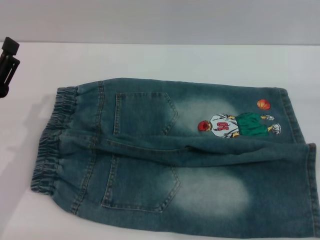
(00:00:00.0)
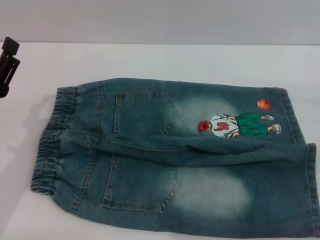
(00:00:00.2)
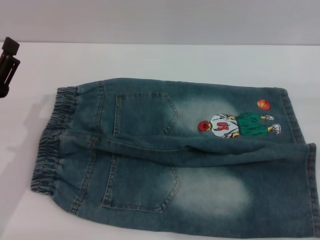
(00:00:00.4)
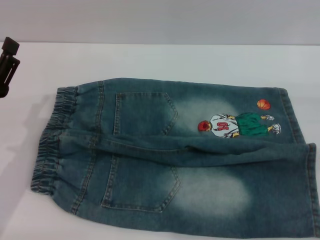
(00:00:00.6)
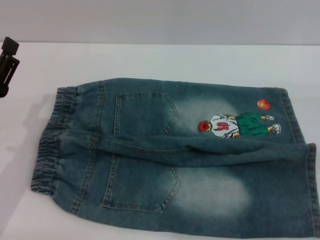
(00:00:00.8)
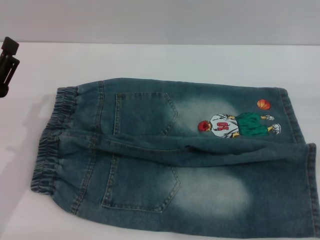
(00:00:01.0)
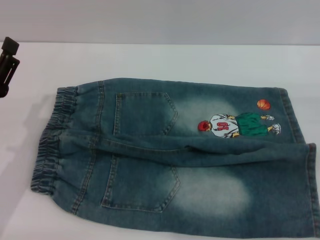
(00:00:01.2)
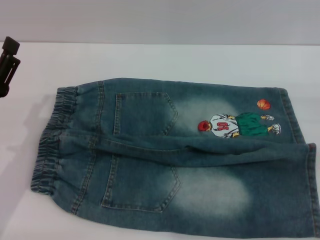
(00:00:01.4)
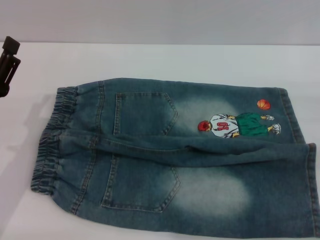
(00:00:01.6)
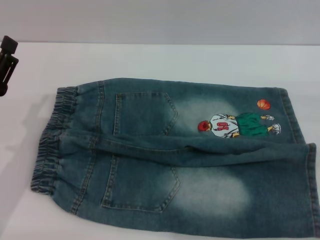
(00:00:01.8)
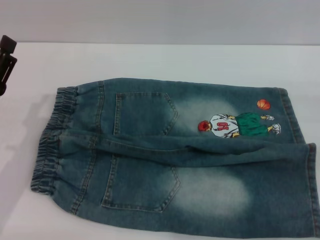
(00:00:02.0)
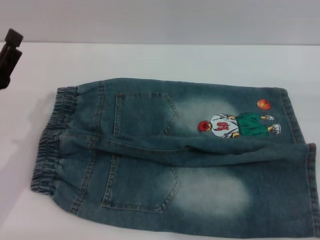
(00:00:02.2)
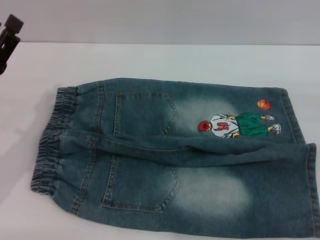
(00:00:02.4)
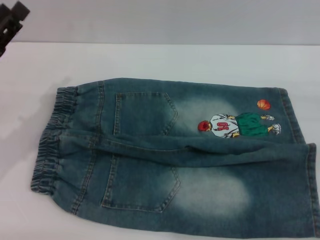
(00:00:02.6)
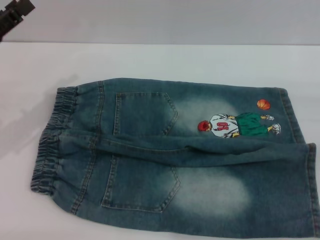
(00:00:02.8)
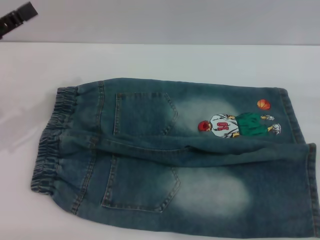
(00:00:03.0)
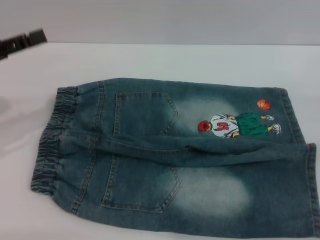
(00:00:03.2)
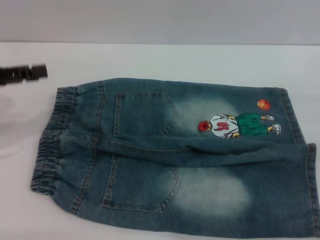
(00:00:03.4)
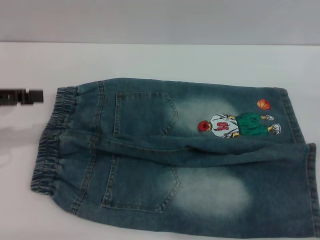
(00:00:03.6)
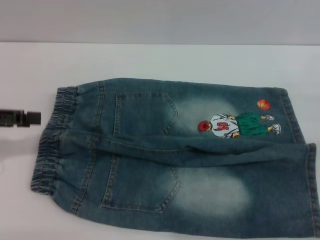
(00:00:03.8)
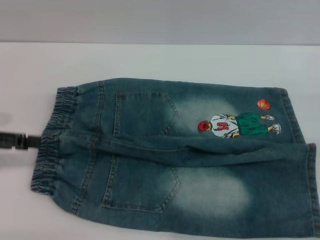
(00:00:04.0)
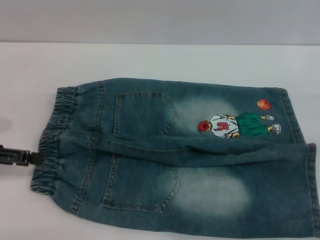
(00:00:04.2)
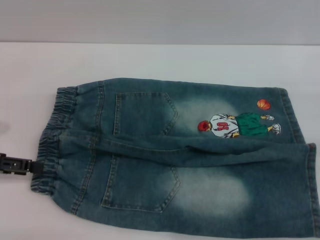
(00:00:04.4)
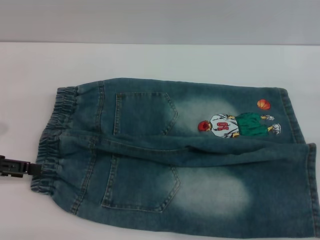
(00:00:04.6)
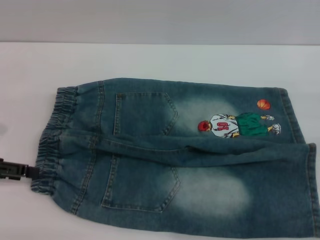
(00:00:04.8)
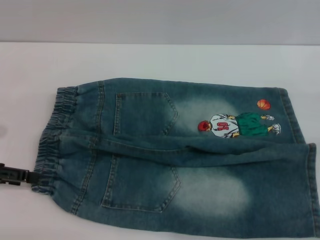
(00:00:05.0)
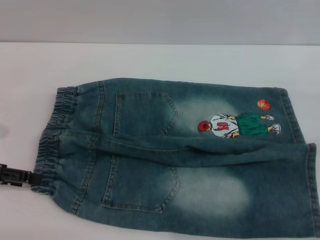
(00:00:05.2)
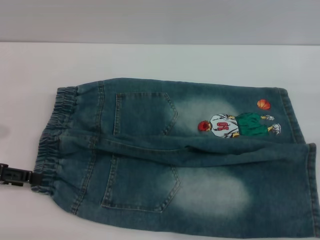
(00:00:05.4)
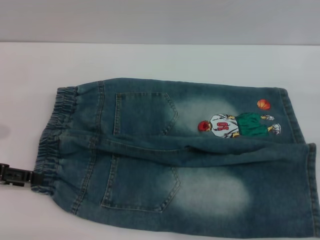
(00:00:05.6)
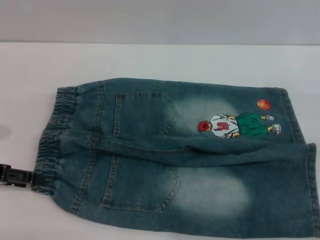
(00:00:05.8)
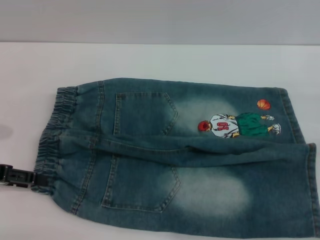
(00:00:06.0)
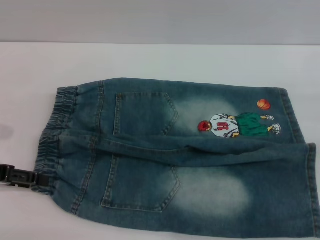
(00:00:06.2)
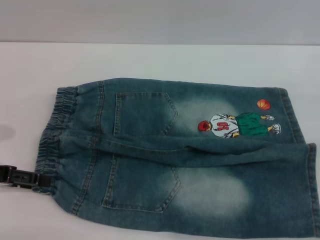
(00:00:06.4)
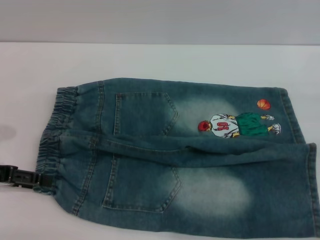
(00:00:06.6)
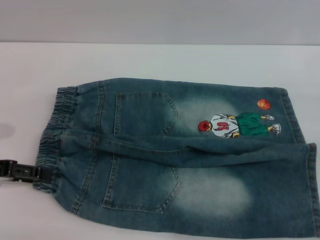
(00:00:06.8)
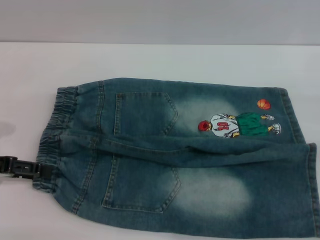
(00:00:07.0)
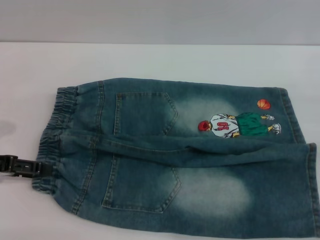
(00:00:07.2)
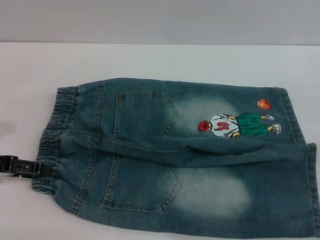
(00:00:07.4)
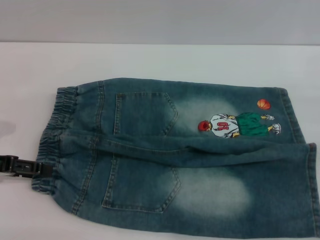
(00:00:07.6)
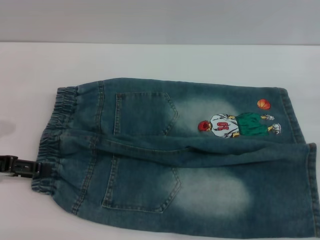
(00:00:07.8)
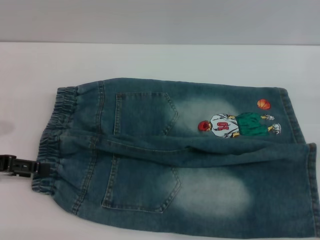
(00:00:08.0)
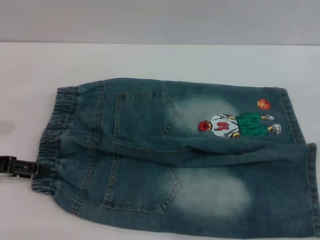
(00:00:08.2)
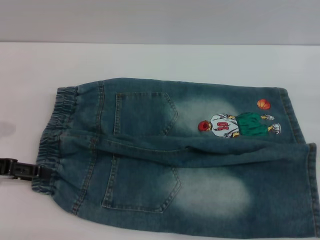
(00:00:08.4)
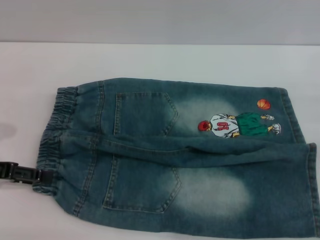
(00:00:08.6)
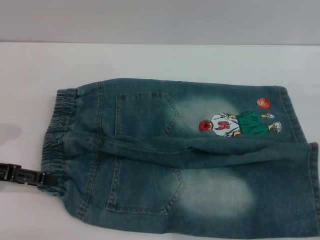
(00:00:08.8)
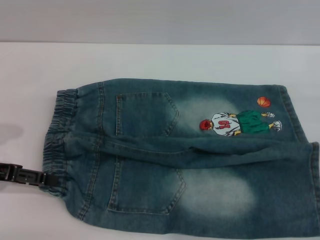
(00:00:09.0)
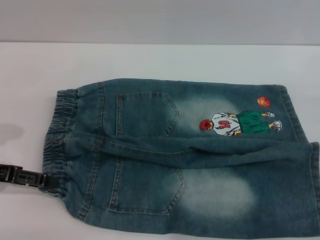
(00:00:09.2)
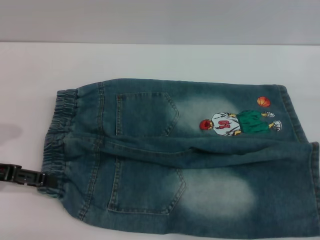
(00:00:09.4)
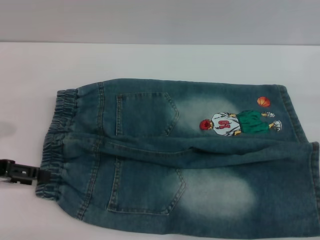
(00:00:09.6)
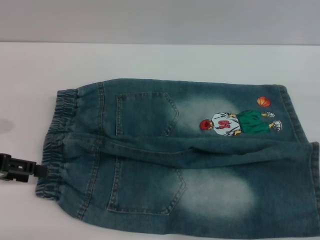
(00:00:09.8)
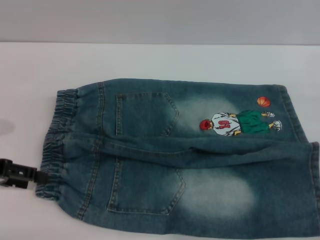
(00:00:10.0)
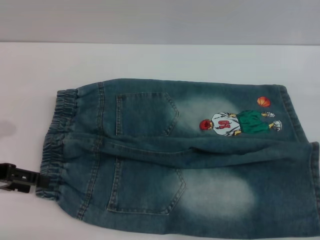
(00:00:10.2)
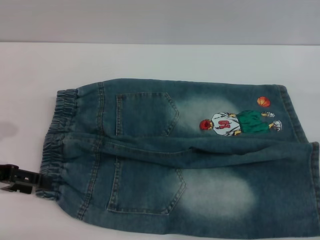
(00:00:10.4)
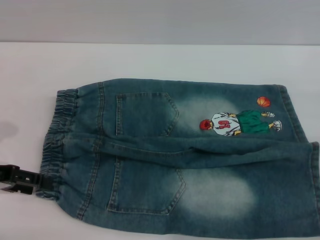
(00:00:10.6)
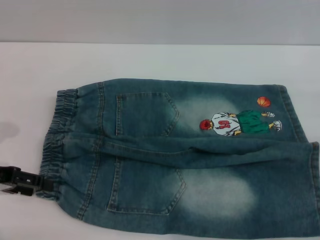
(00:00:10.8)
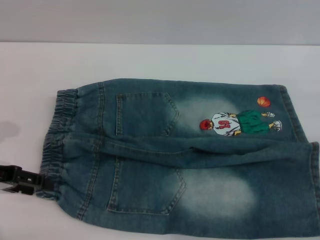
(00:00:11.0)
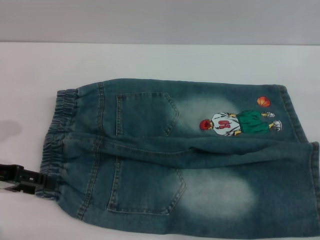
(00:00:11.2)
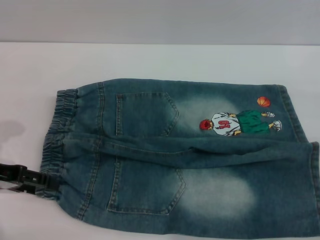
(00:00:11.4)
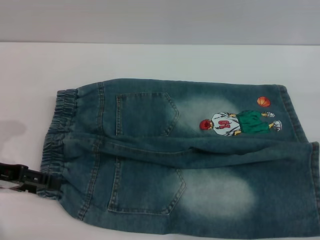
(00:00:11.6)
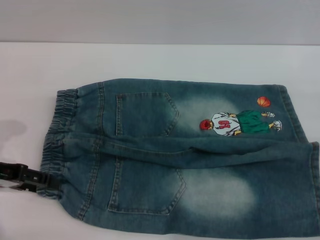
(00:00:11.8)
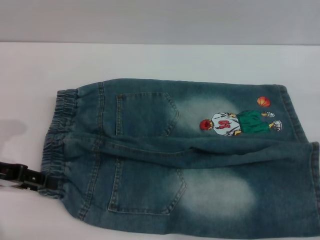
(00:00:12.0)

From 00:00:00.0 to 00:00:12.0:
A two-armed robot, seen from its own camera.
From 00:00:00.0 to 00:00:01.6: Neither gripper changes place.
From 00:00:01.6 to 00:00:03.0: The left gripper heads upward, forward and to the left, covering about 15 cm.
From 00:00:03.0 to 00:00:04.4: The left gripper shifts by roughly 5 cm.
From 00:00:04.4 to 00:00:06.0: The grippers make only small movements.
From 00:00:06.0 to 00:00:07.6: Both grippers stay put.
From 00:00:07.6 to 00:00:10.4: The grippers move only a little.
From 00:00:10.4 to 00:00:12.0: Both grippers stay put.

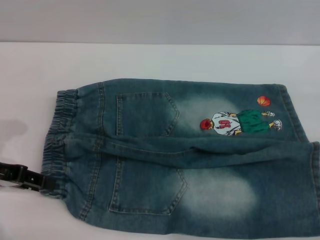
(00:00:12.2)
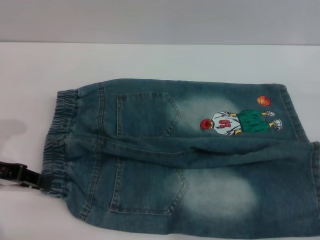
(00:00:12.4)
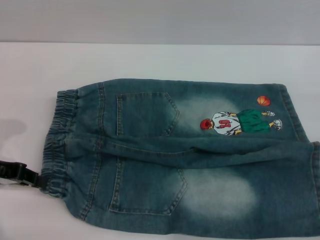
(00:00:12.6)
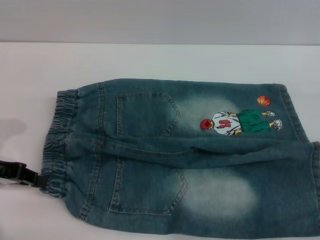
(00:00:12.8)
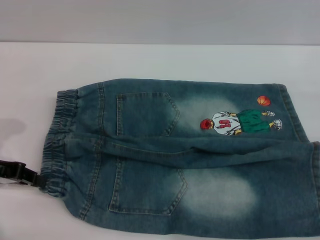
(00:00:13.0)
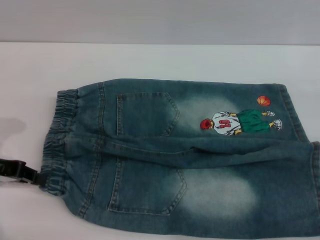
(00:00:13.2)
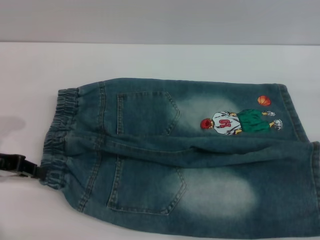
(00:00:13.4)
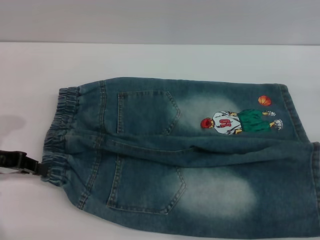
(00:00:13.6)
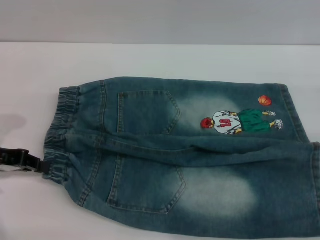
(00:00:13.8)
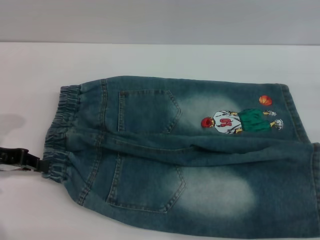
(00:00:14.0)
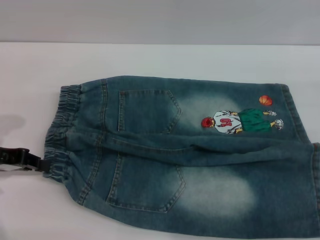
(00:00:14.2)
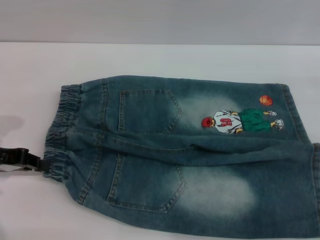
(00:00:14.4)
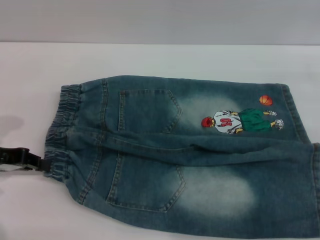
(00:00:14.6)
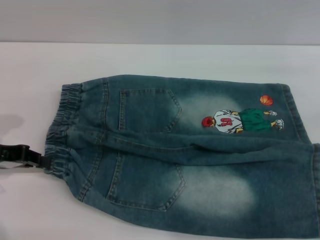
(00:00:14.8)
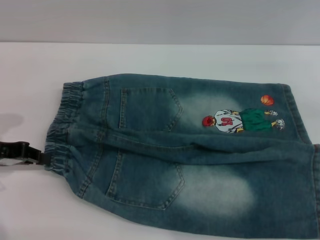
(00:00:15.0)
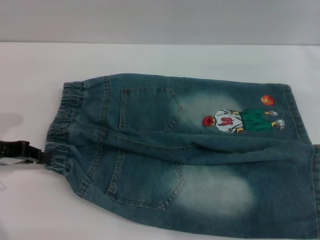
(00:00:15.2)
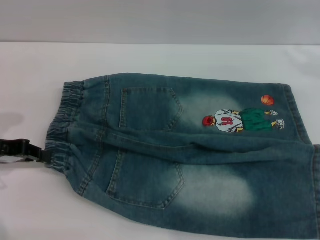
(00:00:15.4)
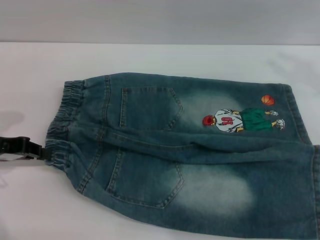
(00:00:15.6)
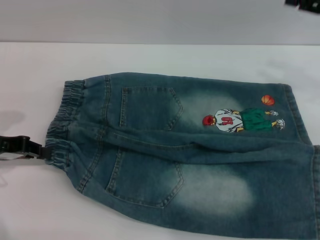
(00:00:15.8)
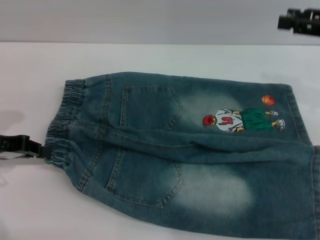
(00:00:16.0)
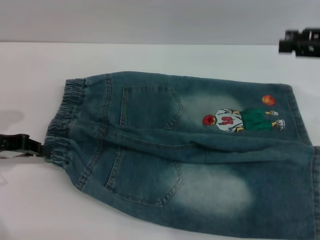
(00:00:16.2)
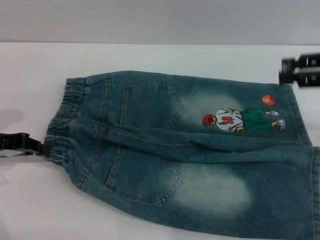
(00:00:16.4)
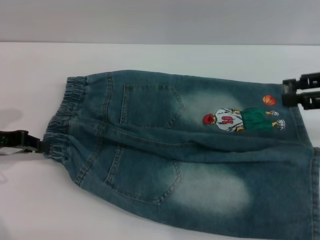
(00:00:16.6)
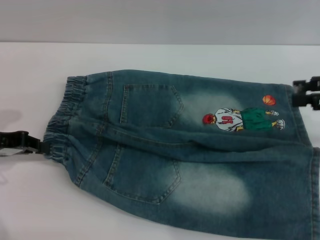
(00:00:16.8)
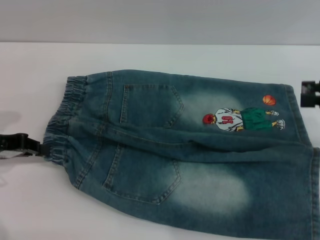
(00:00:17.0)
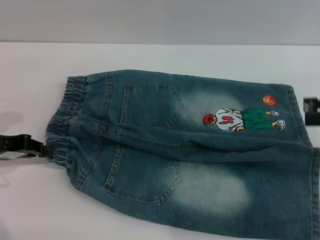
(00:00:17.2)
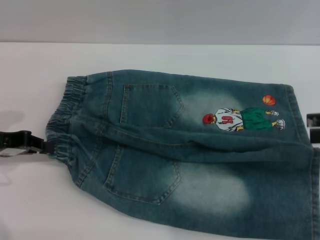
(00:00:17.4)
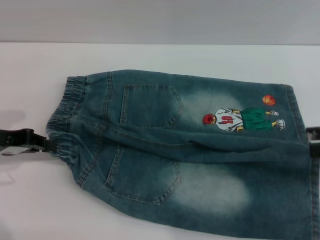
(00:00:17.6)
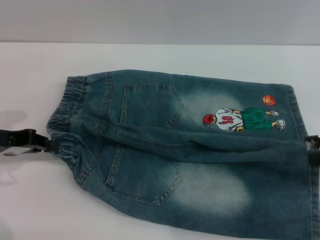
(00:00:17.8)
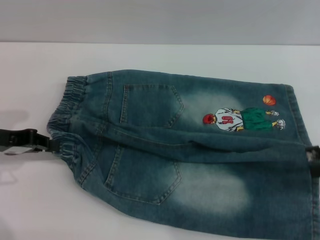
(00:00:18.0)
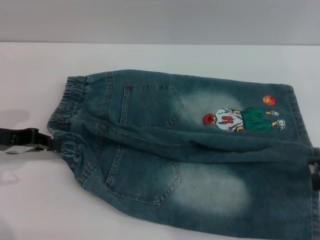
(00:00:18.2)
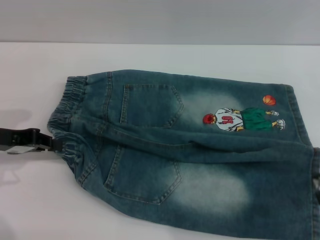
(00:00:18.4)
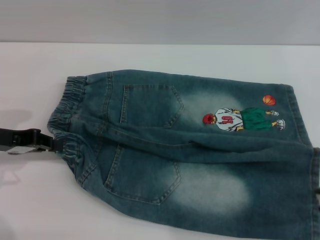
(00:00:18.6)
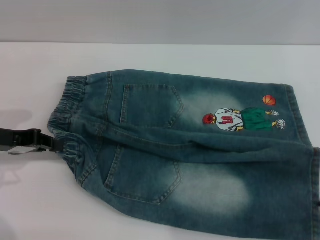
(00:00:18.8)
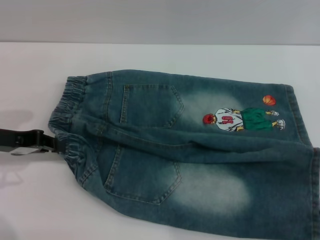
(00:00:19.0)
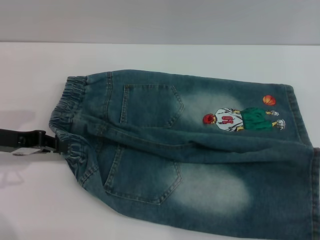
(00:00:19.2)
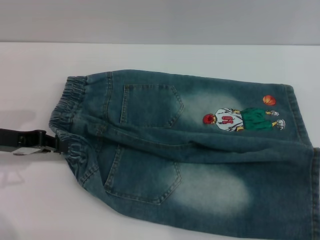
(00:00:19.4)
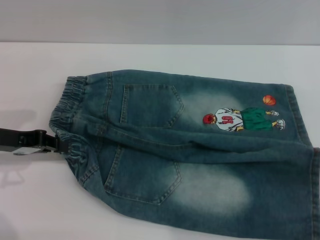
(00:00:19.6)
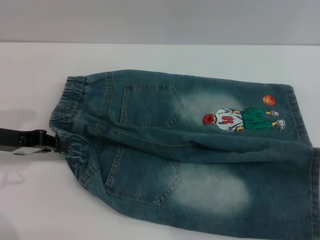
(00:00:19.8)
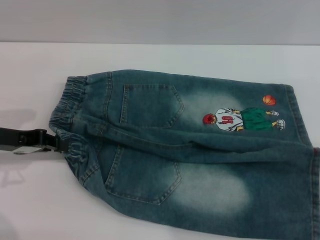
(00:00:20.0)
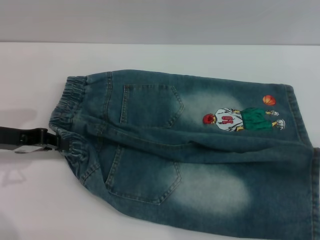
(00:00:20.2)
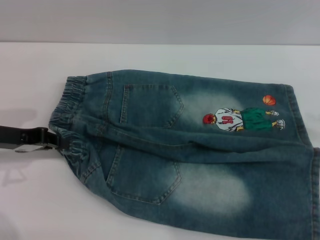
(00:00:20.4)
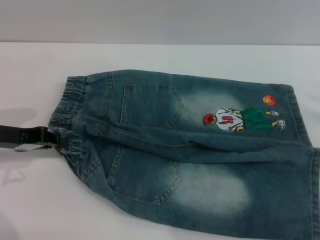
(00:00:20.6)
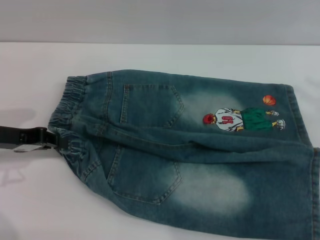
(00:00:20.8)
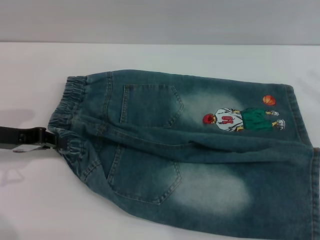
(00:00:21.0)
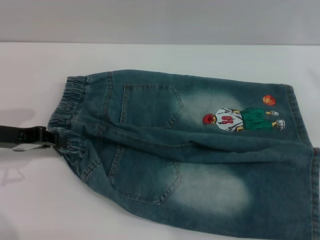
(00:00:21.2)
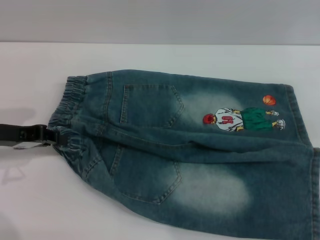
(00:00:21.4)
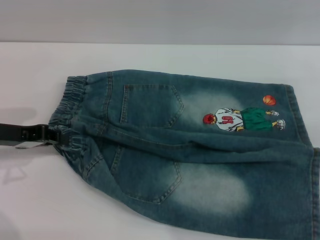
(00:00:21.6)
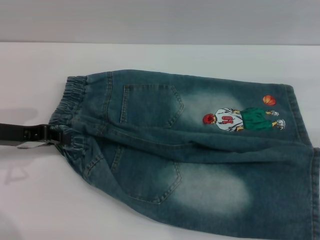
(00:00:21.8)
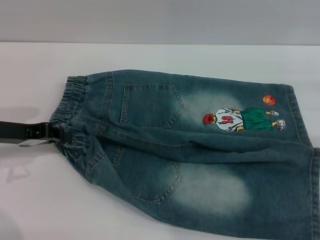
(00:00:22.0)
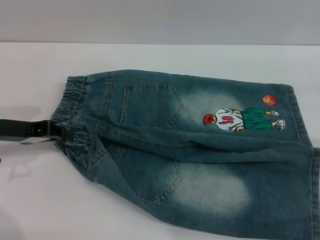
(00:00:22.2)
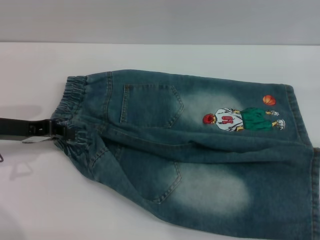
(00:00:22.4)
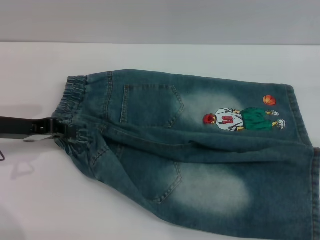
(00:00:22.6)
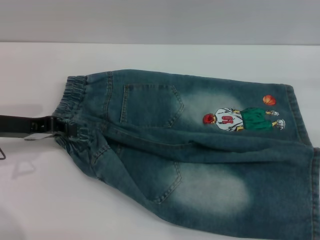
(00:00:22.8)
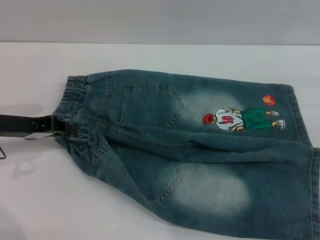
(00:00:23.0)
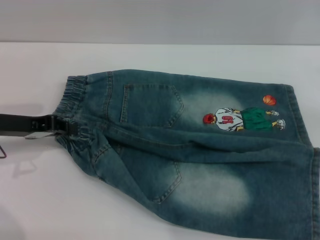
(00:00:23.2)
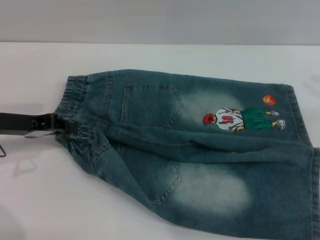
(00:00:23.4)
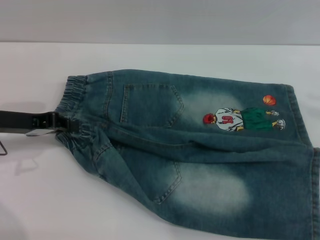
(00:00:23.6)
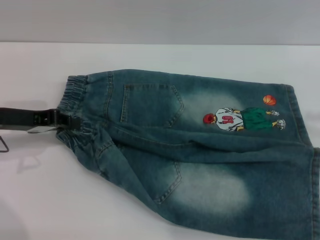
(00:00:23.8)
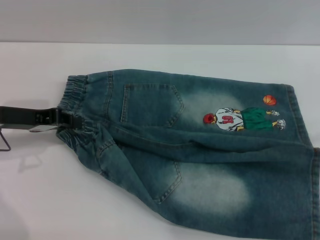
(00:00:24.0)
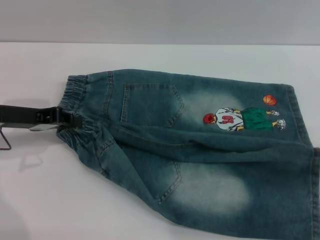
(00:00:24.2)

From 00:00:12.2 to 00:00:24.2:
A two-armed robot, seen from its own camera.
From 00:00:12.2 to 00:00:13.8: The left gripper closes.
From 00:00:13.8 to 00:00:15.2: The right gripper is displaced upward by about 10 cm.
From 00:00:15.2 to 00:00:16.6: The right gripper changes place by roughly 5 cm.
From 00:00:16.6 to 00:00:18.2: The right gripper heads backward, covering about 5 cm.
From 00:00:18.2 to 00:00:19.8: The grippers move only a little.
From 00:00:21.2 to 00:00:22.6: The right gripper ends up some 5 cm from where it was.
From 00:00:22.6 to 00:00:24.2: The right gripper changes place by some 10 cm.
